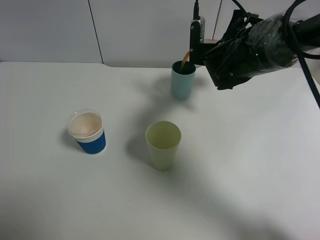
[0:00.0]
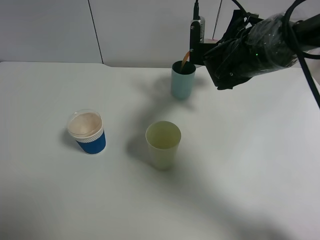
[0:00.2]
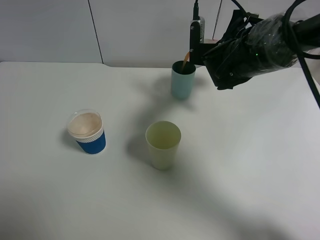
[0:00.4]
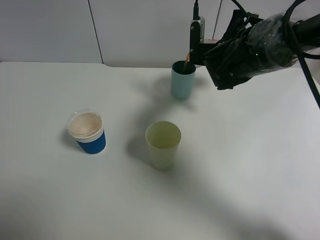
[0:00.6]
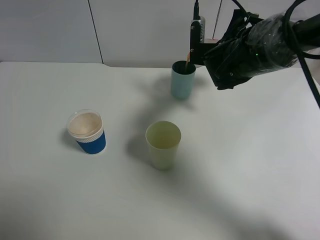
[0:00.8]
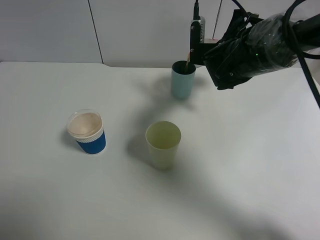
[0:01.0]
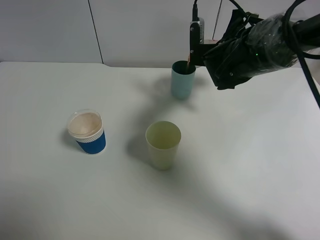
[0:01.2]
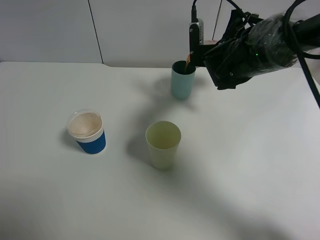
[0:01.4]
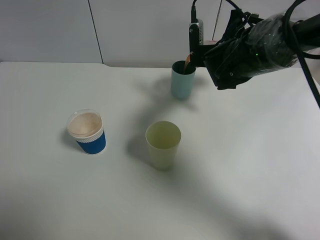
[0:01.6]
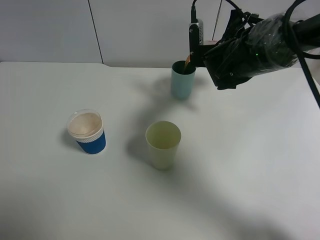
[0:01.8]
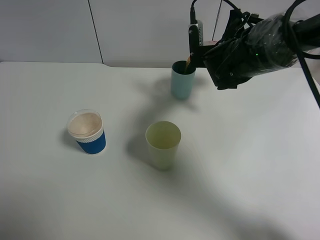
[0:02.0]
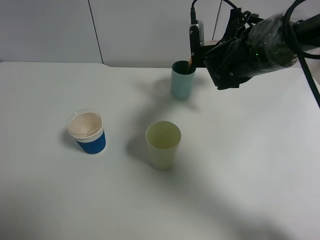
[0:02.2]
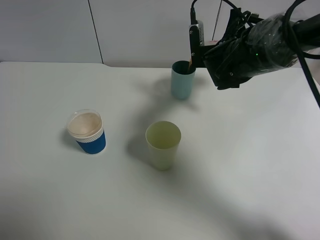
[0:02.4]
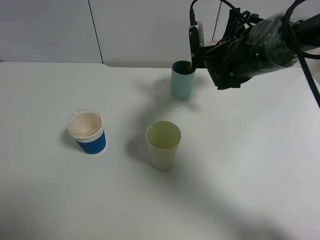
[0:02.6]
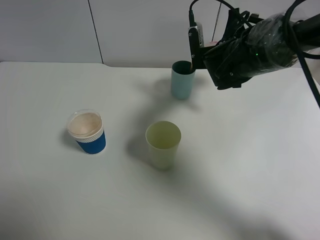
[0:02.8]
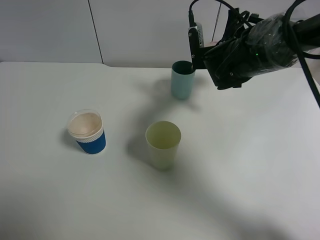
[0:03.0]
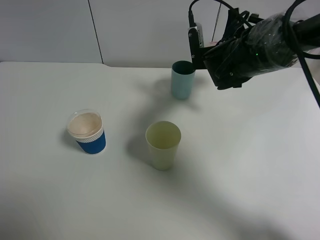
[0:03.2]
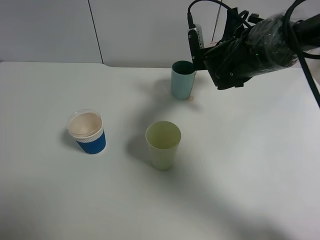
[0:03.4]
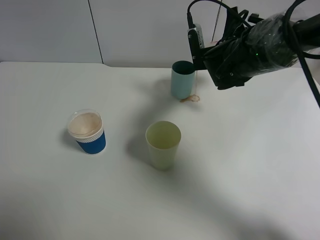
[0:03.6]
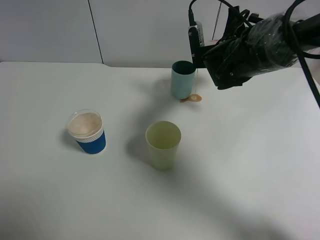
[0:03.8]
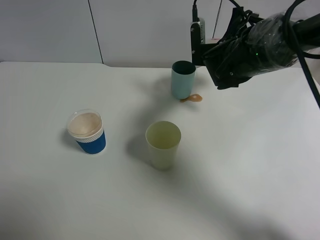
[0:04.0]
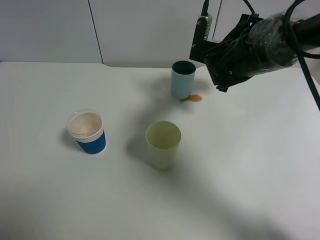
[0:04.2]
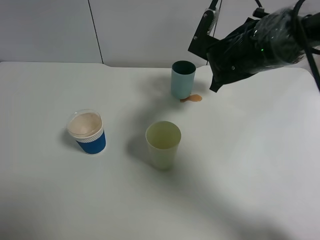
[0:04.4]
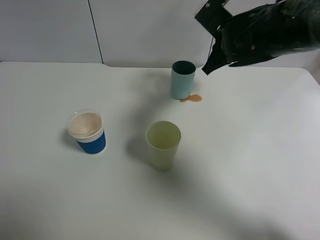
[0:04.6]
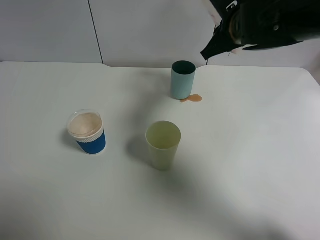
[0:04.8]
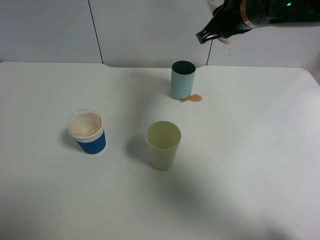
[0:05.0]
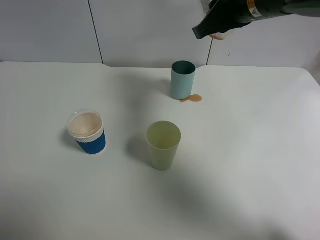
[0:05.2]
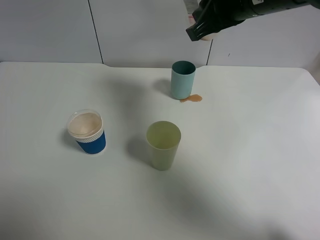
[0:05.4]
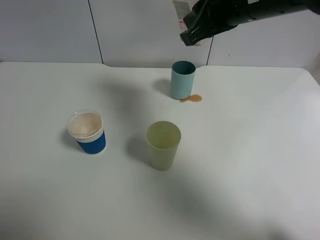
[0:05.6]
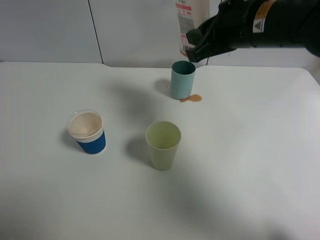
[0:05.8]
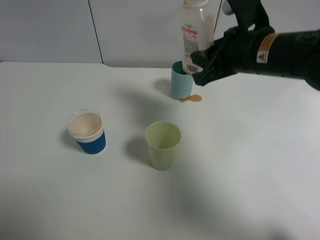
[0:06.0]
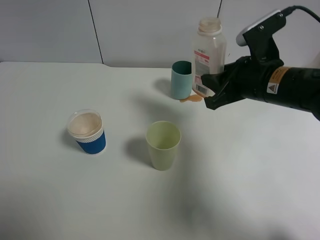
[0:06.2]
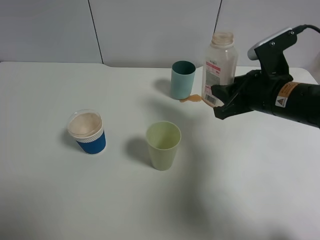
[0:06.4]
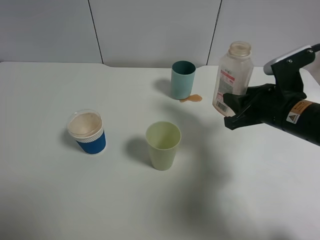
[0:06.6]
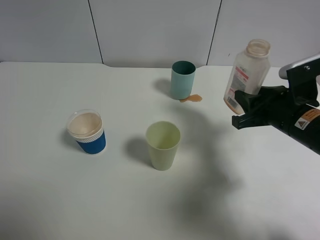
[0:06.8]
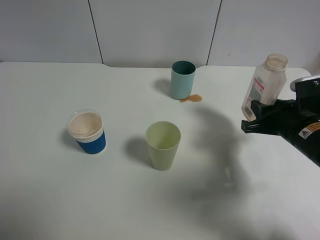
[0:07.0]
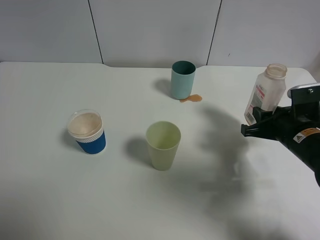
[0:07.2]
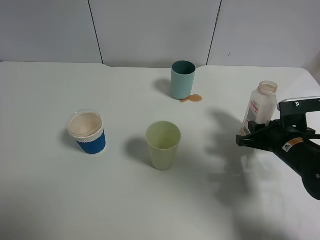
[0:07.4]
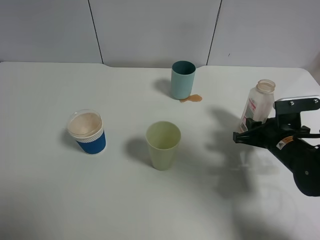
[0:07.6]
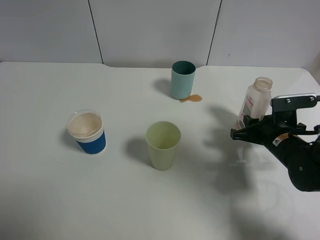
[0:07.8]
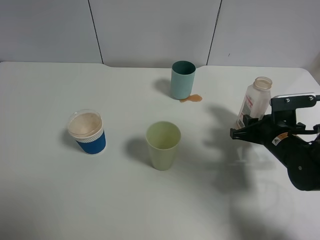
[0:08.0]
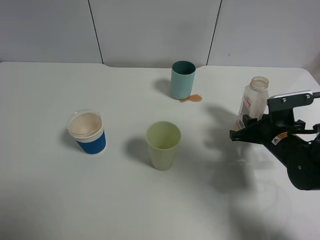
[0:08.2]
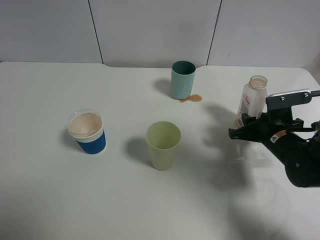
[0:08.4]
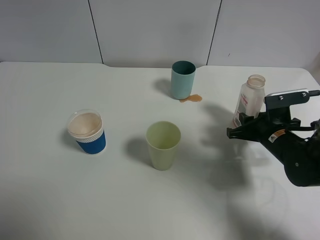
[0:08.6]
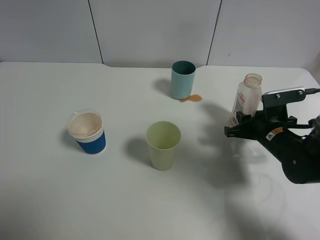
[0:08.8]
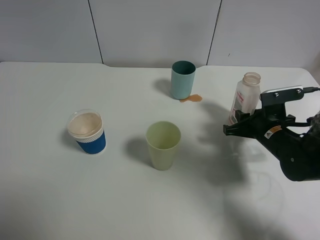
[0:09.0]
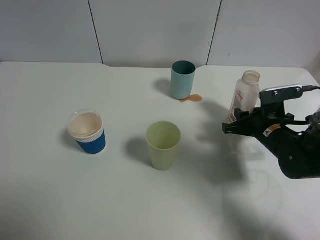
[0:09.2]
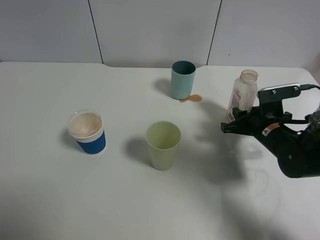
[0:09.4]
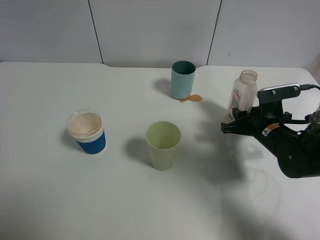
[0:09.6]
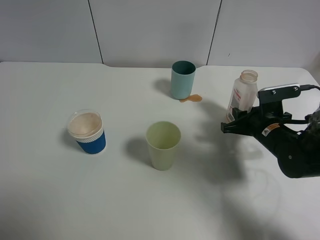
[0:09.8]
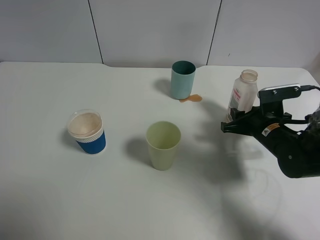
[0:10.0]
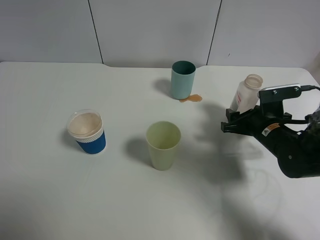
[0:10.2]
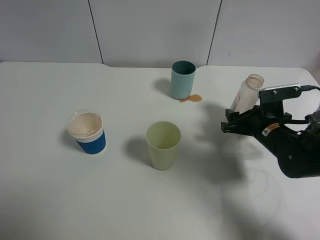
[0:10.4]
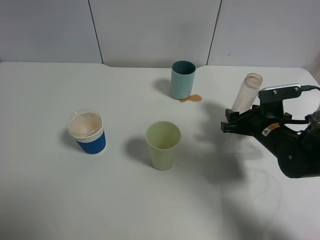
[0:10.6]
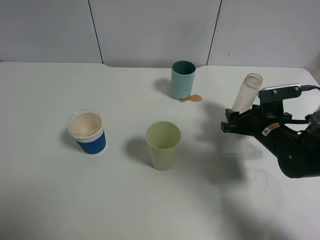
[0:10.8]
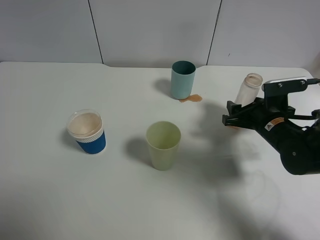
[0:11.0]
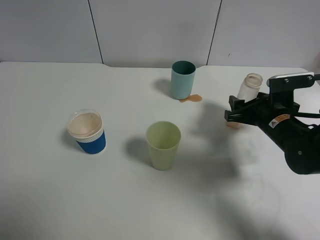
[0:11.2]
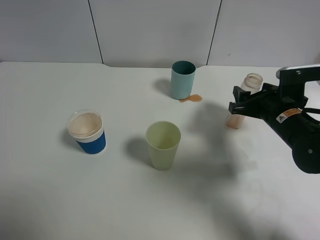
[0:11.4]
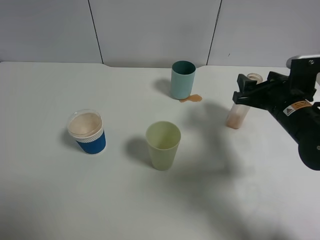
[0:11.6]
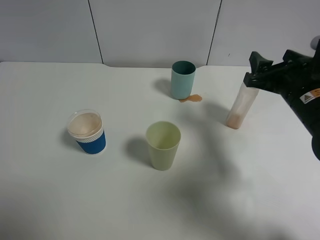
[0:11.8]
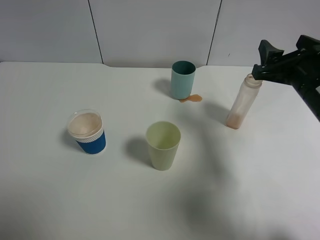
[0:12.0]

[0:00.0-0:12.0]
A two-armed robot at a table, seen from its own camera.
Task of the whole recording: use a gripper to hold the bottle of the drink and pour it into a random cup.
Step, 0:00.0 to 0:04.2: Pour the cranberry juice into the cyan cup with the right gripper.
Step, 0:04.4 to 0:10.4: Place the cranberry juice bottle on the table with the right gripper.
0:00.0 to 0:01.6: Neither gripper changes place.
0:01.6 to 0:03.0: The grippers move only a little.
0:04.4 to 0:06.0: The right gripper moves backward and upward, roughly 10 cm.
0:06.0 to 0:07.6: The right gripper travels downward and to the right by about 20 cm.
0:07.6 to 0:09.0: The grippers make only small movements.
0:09.0 to 0:10.4: The right gripper opens.
0:10.4 to 0:12.0: The right gripper shifts roughly 15 cm upward.

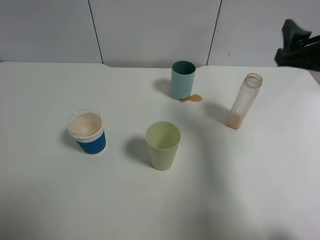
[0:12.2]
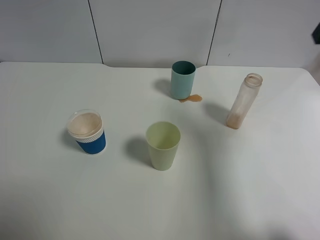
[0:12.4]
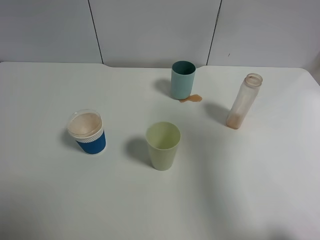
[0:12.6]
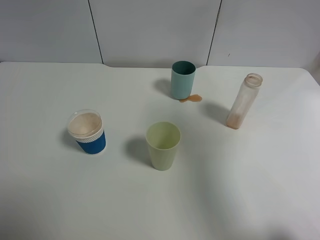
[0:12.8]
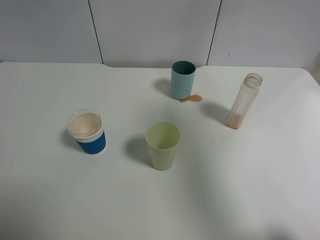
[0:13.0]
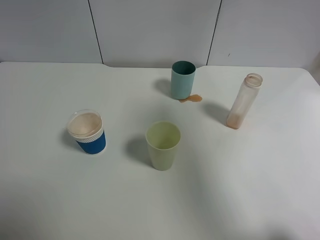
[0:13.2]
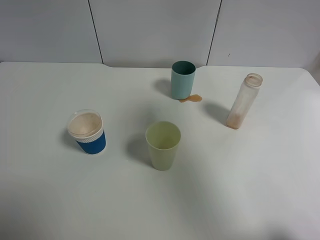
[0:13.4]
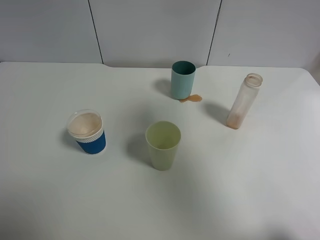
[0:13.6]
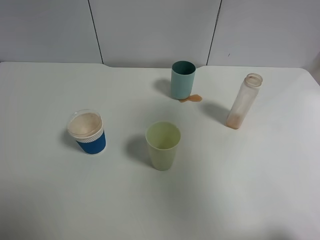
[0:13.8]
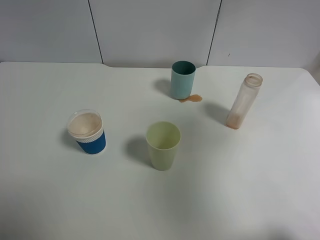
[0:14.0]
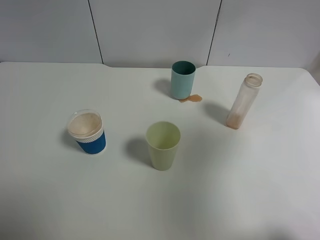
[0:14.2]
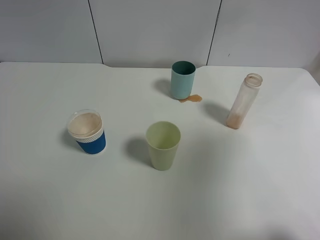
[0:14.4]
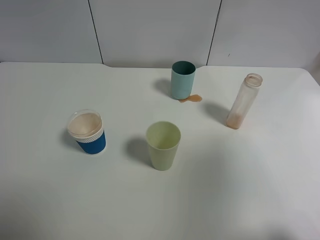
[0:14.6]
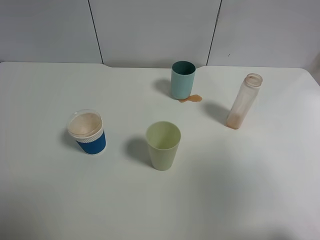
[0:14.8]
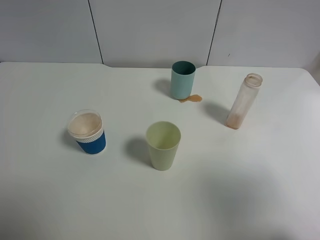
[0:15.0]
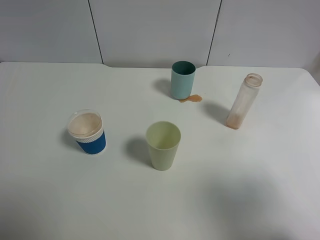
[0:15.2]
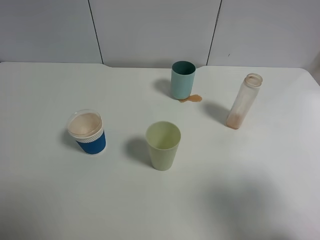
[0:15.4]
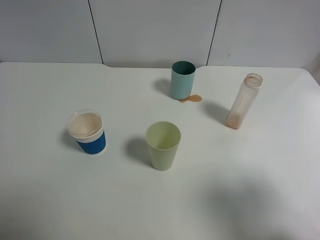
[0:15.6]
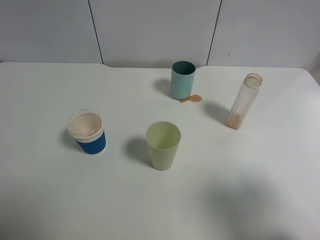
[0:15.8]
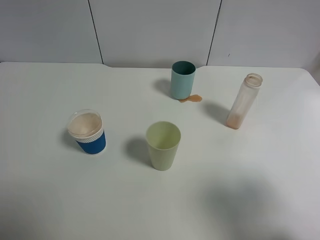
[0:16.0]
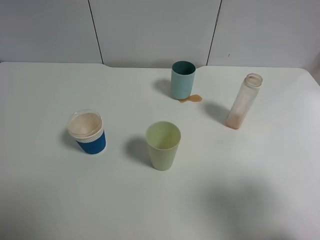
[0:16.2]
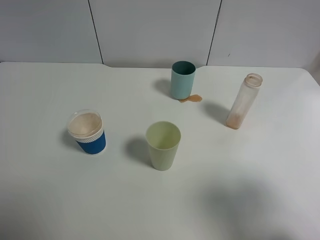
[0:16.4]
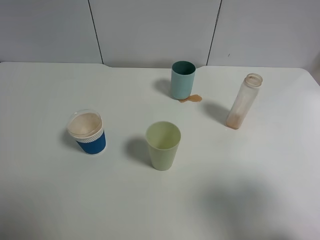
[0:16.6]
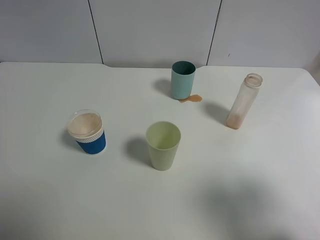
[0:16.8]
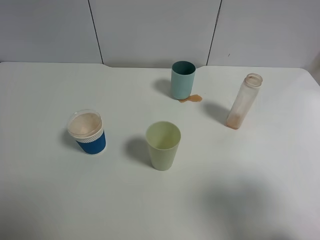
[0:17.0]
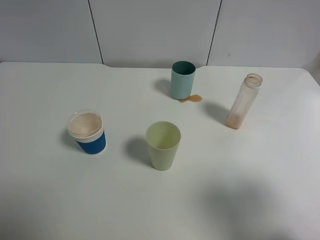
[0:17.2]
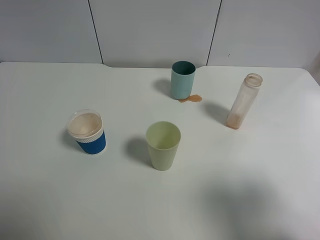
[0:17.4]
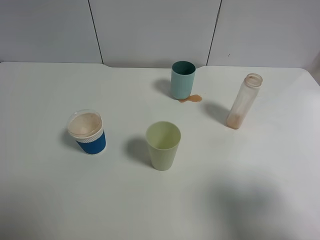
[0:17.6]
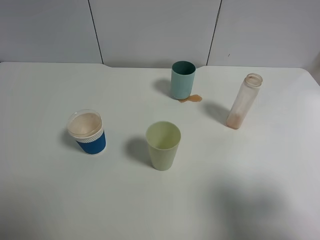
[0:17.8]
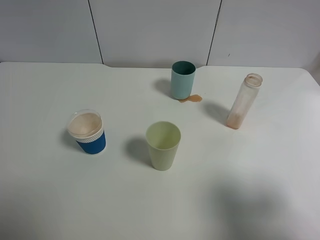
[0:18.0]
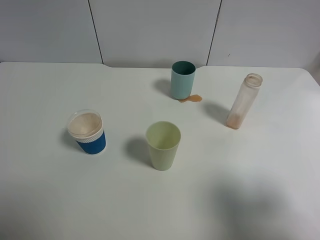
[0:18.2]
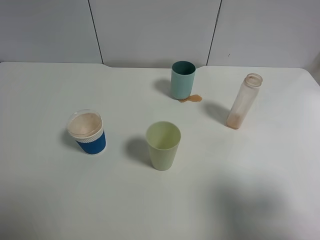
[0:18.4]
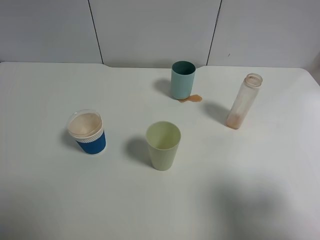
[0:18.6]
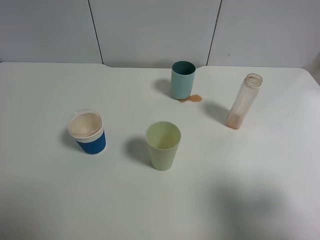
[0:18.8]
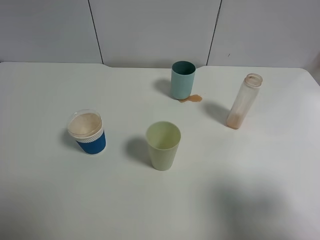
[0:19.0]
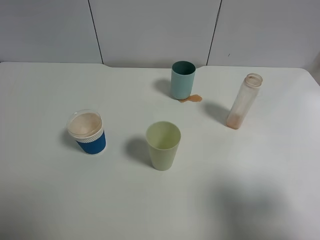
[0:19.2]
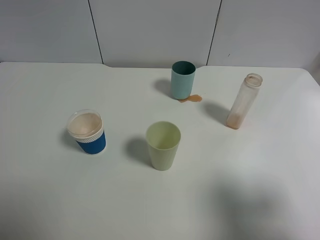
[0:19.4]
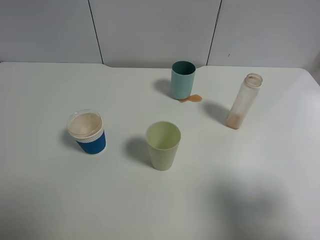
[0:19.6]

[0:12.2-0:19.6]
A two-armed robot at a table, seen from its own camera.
Task of the whole recording: use a gripper to hold the bottle of the drink and pour it into a random cup.
0:12.2 to 0:13.6: The right gripper shifts roughly 20 cm upward and backward.
0:13.6 to 0:15.2: The right gripper shifts some 20 cm backward, downward and to the right.
0:18.2 to 0:19.6: Both grippers stay about where they are.

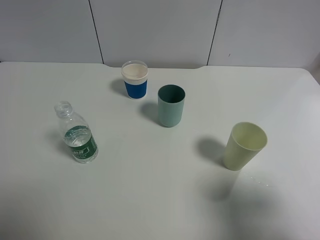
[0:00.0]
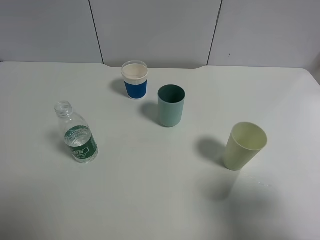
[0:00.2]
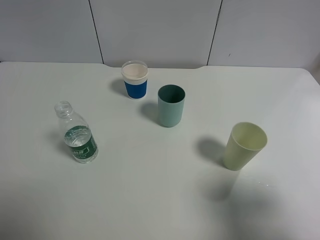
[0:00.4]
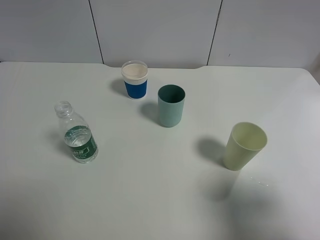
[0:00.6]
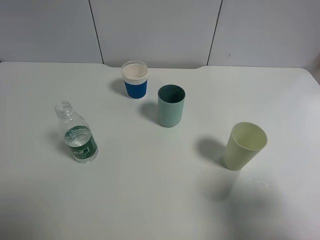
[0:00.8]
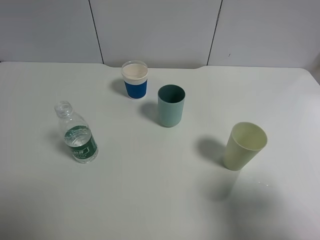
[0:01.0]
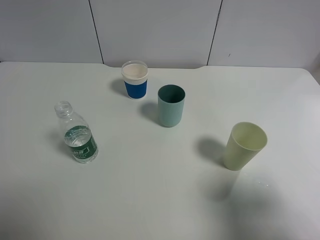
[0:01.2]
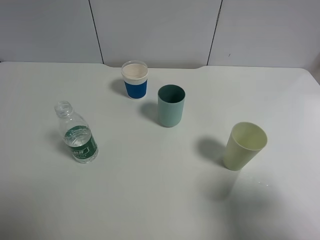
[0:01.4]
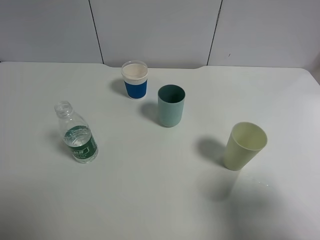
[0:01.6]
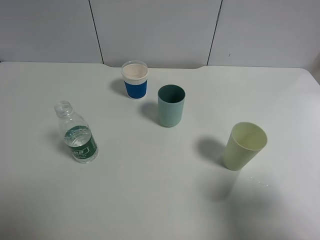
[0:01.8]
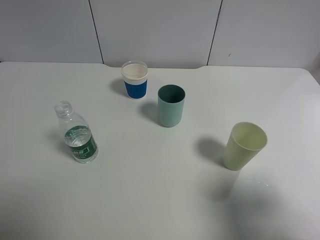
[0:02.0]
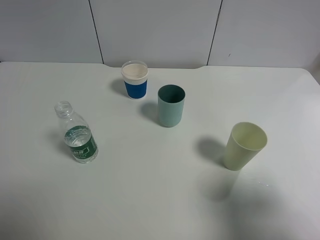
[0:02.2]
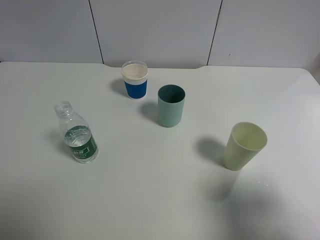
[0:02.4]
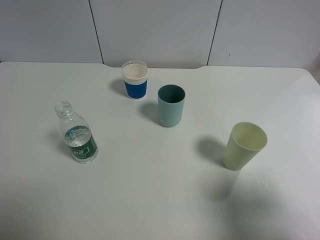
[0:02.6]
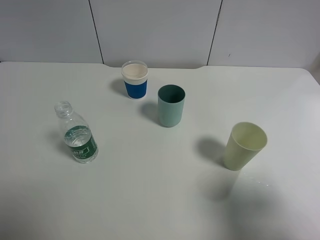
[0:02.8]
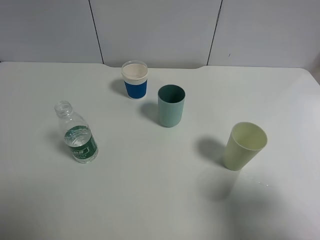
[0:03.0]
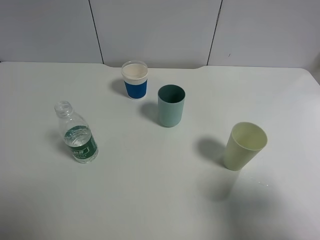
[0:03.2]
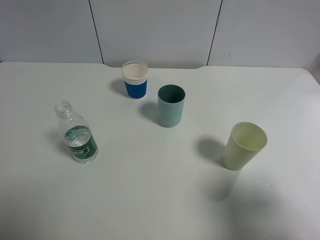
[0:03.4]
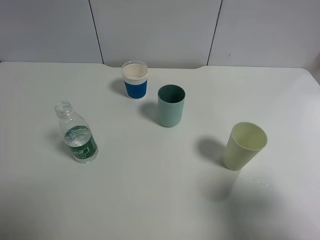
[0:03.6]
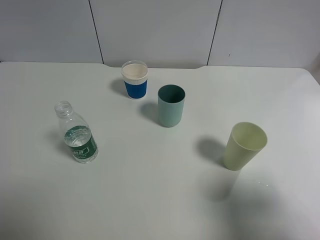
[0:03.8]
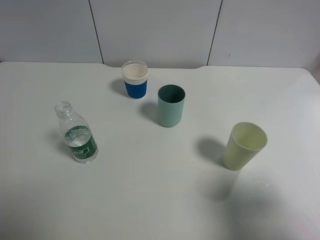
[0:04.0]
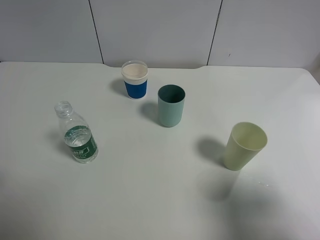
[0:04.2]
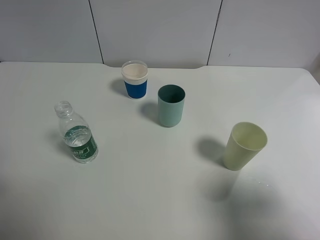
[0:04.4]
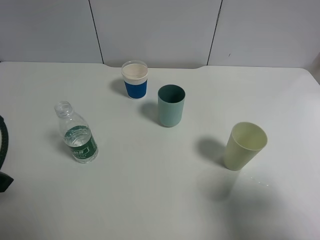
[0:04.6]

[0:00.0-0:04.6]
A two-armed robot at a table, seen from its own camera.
Task of the whole recording: use a gripper to hold the bottle of the drink and pour it into a random cup.
0:00.0 to 0:03.0: Both grippers stay about where they are.
0:03.0 to 0:04.6: The left gripper goes some 10 cm forward.
